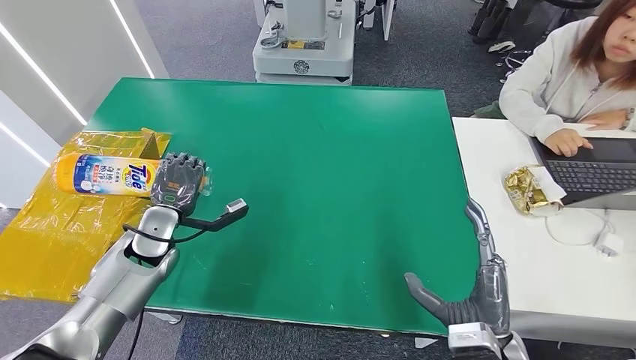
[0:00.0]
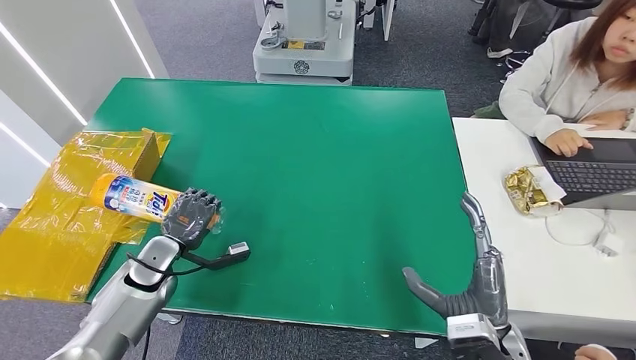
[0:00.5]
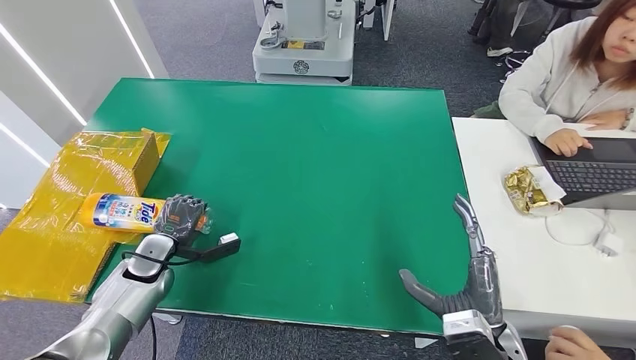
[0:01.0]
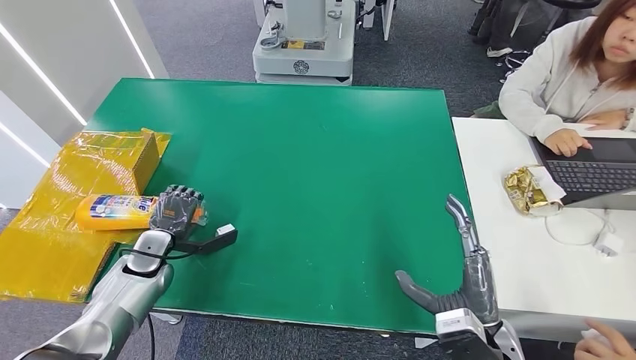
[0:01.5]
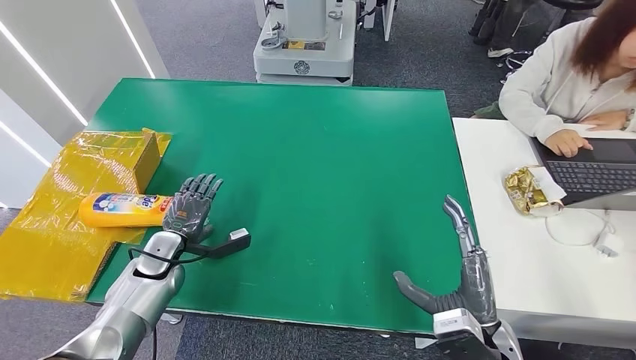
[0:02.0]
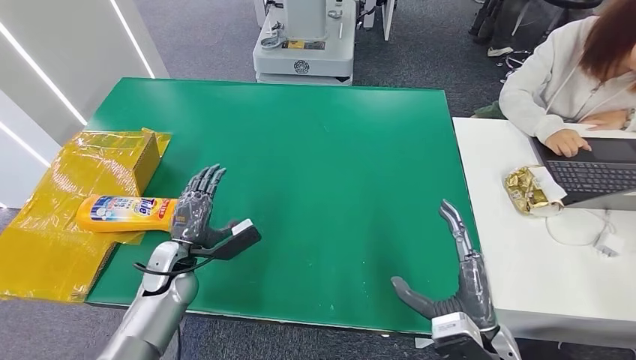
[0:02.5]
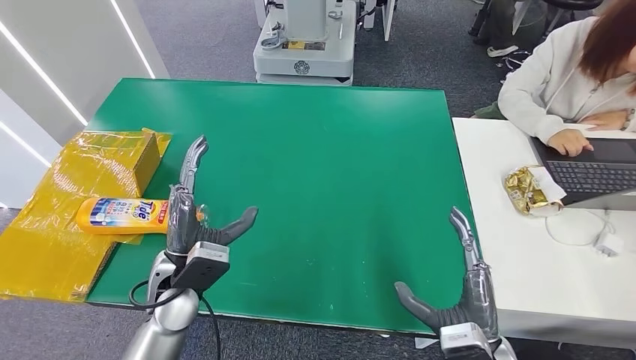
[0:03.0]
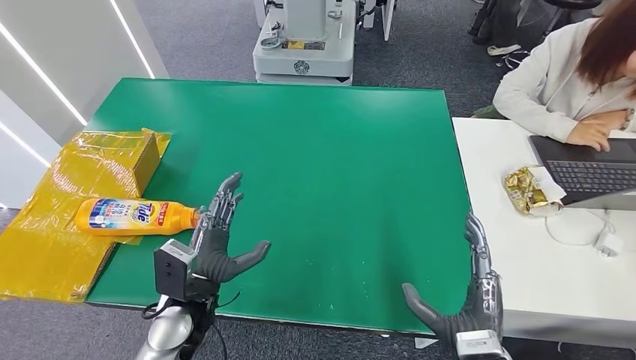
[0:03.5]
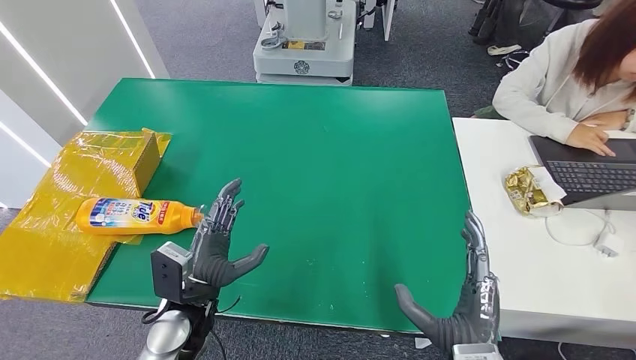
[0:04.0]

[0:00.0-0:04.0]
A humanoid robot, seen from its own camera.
Step, 0:00.0 to 0:04.0: Turn the bottle to the front side.
0:00.0 to 0:02.0: The left hand shifts about 5 cm downward.
0:02.0 to 0:04.0: The right hand changes place by some 5 cm. Meanwhile the left hand is displaced to the right, backward and upward by approximately 20 cm.
